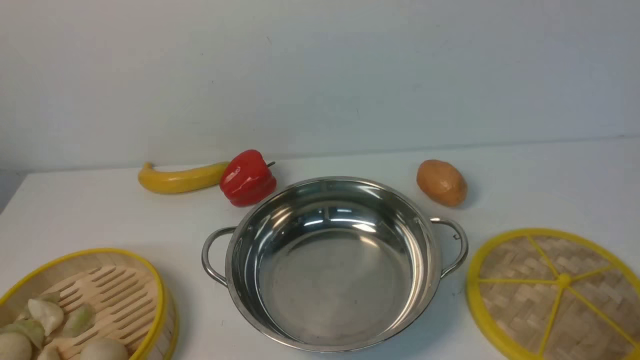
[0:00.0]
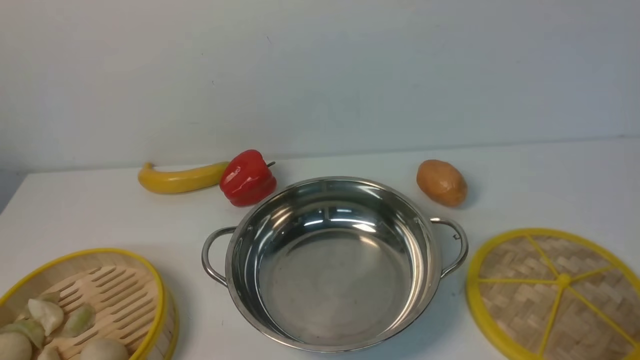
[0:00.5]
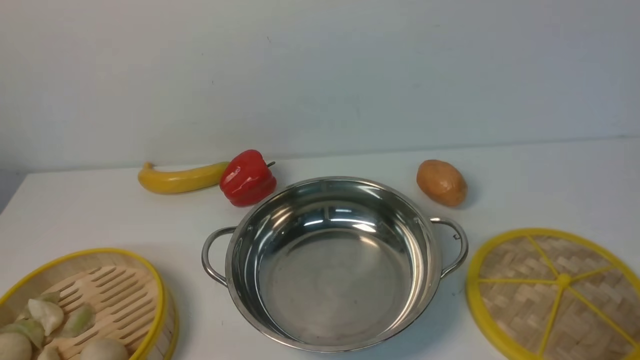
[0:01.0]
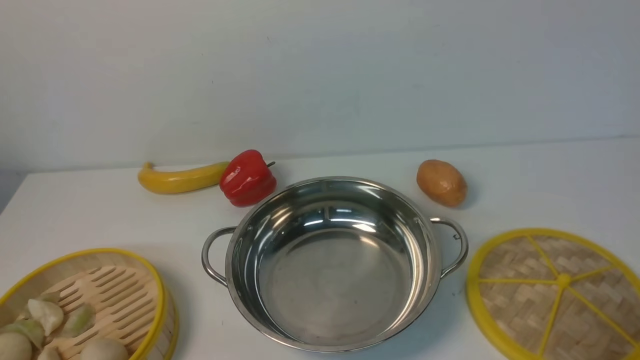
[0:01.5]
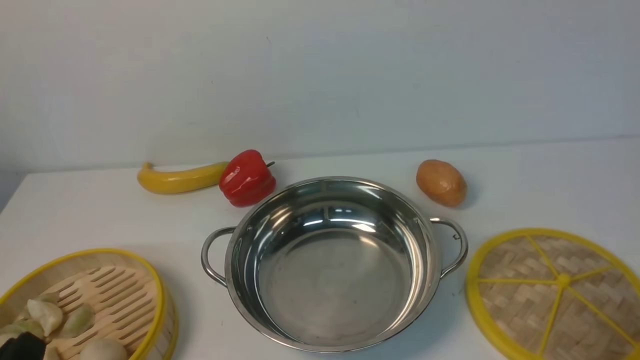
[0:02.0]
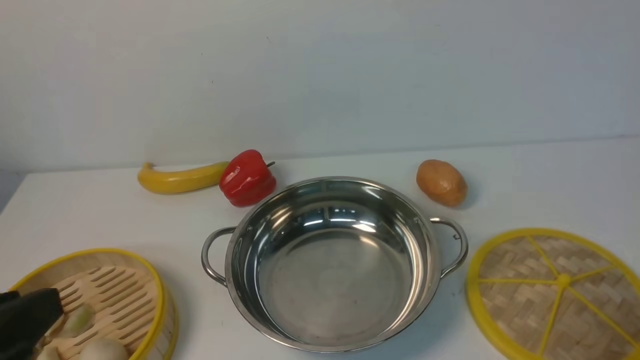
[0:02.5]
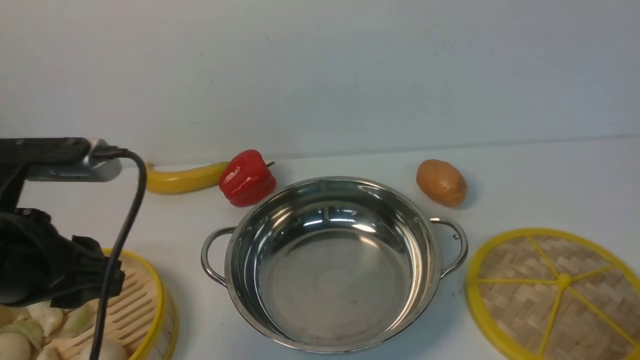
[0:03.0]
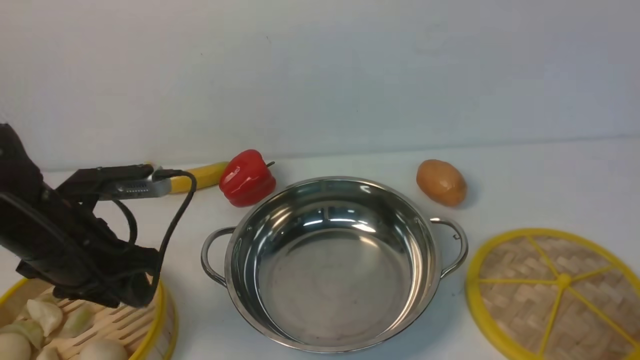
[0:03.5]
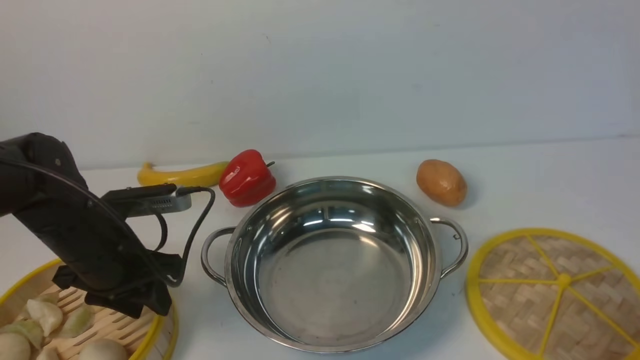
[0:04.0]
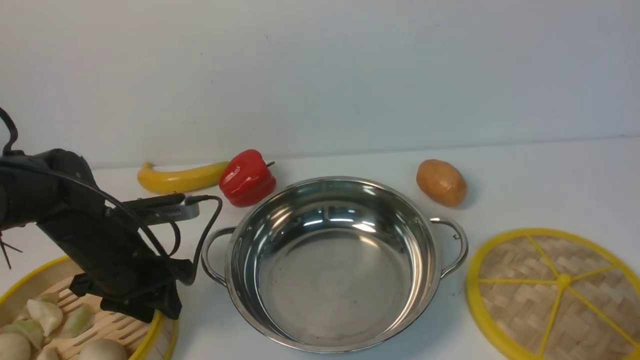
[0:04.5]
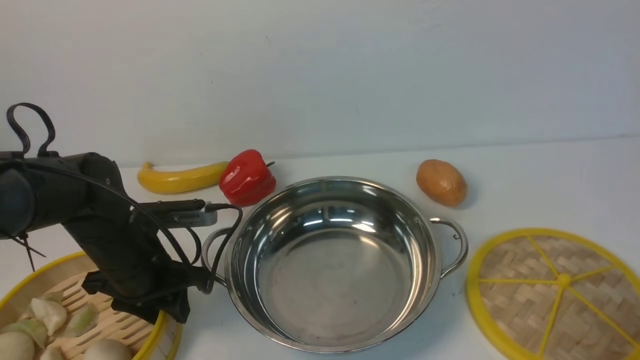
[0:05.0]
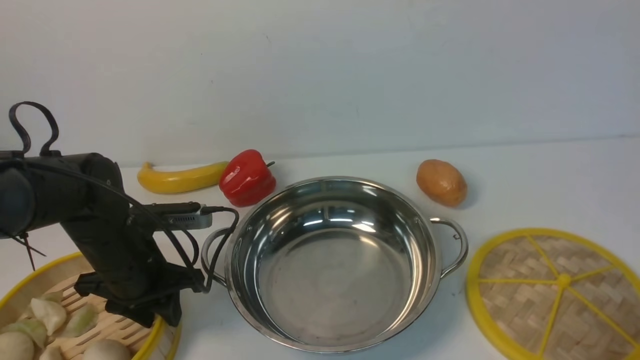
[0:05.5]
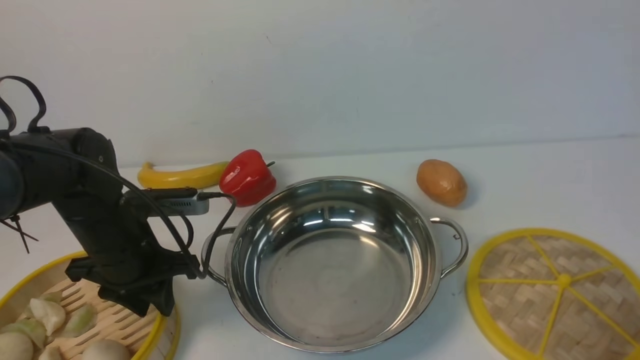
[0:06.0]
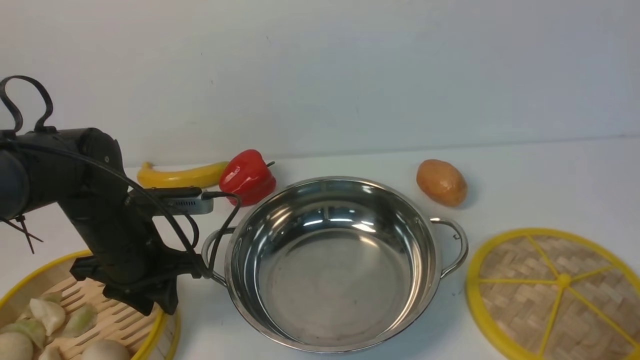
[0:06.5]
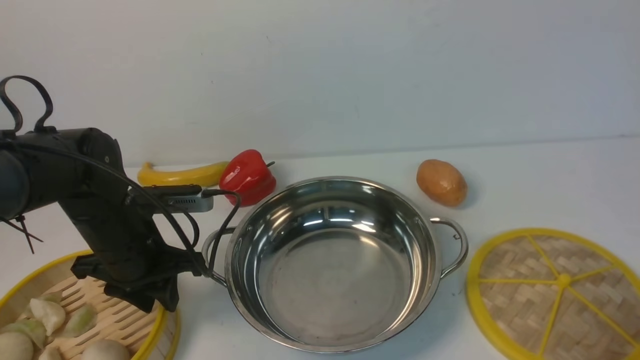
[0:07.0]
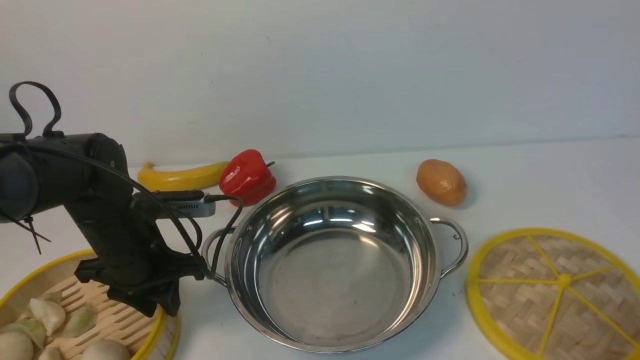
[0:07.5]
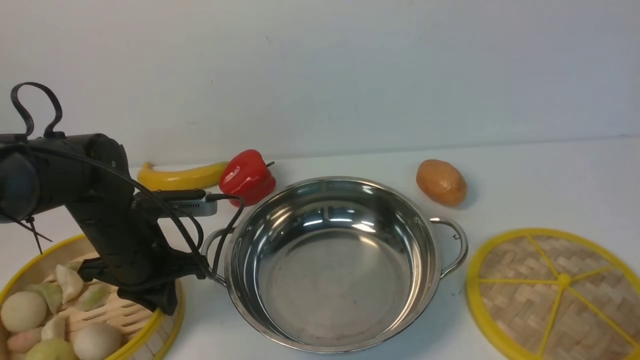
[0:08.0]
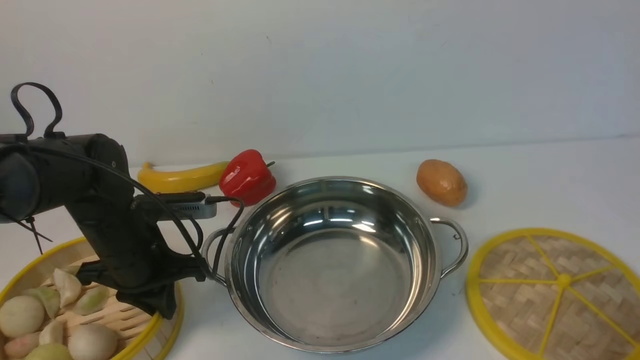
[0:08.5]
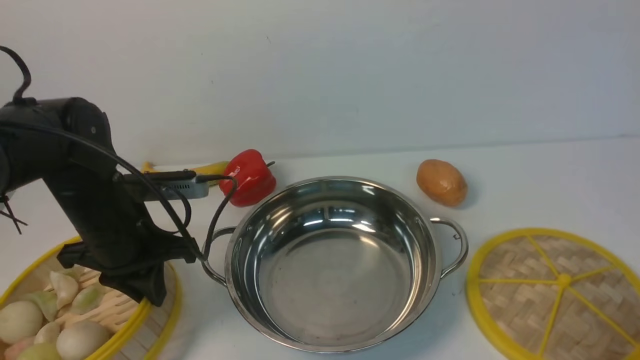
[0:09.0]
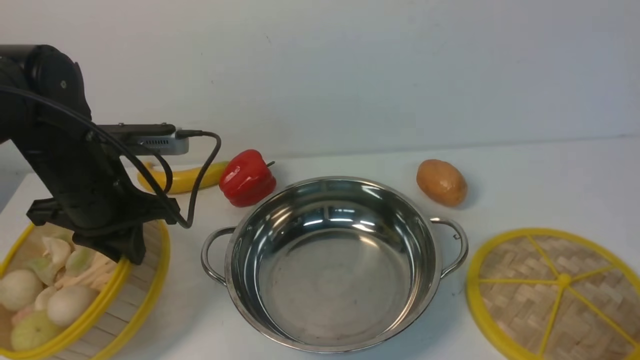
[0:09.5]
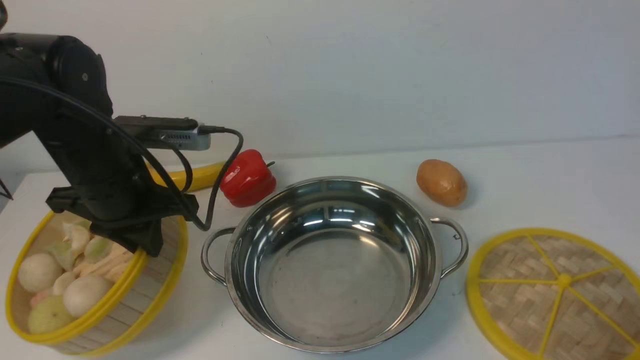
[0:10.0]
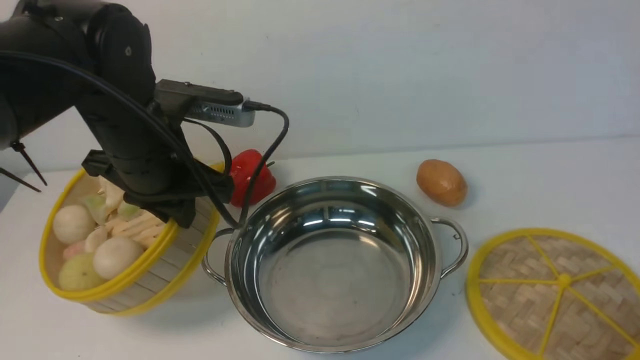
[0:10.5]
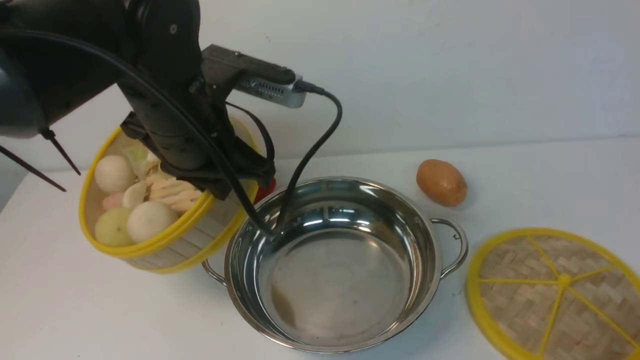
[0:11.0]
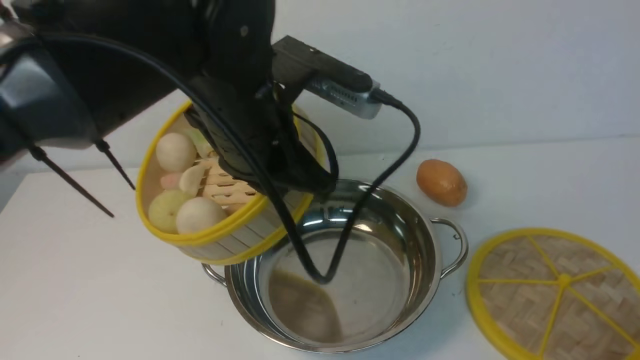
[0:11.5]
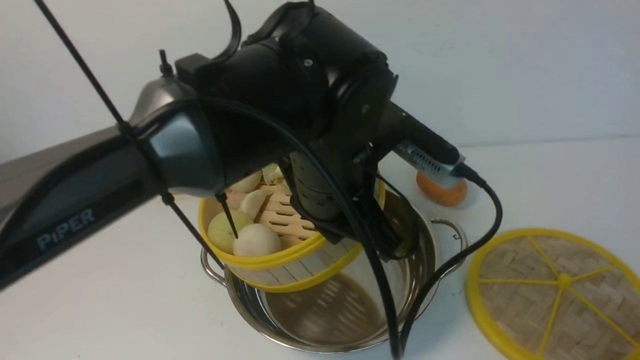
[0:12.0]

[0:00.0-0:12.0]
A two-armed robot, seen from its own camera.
Task of the whole recording: place the steamer in the pot on the white table, and put the lid on the steamer.
Step, 0:00.0 to 0:09.0: use the left arm to lift the steamer closest to it.
0:02.0 to 0:04.0: The left gripper is displaced forward by about 25 cm, and opens.
0:04.0 to 0:06.0: The grippers make only small movements.
0:06.0 to 0:08.0: The left gripper closes.
0:08.0 to 0:10.0: The left gripper travels upward by some 10 cm.
0:10.0 to 0:12.0: The left gripper travels to the right by approximately 20 cm.

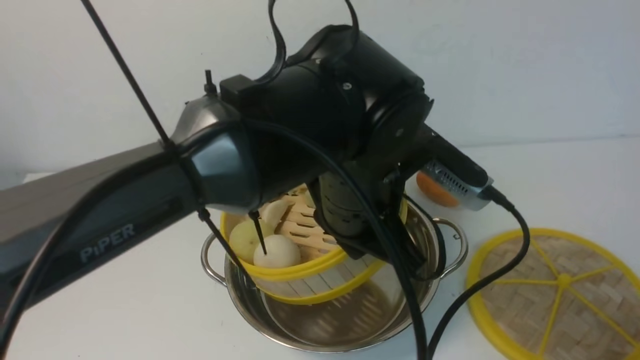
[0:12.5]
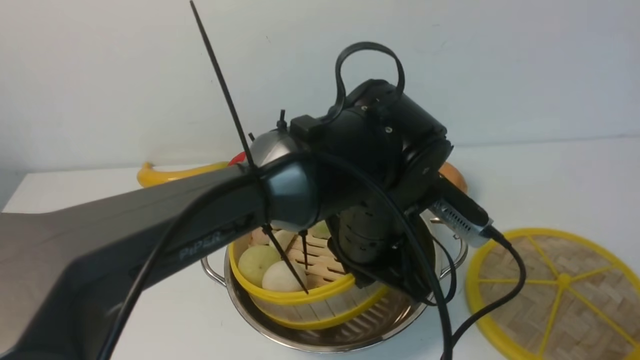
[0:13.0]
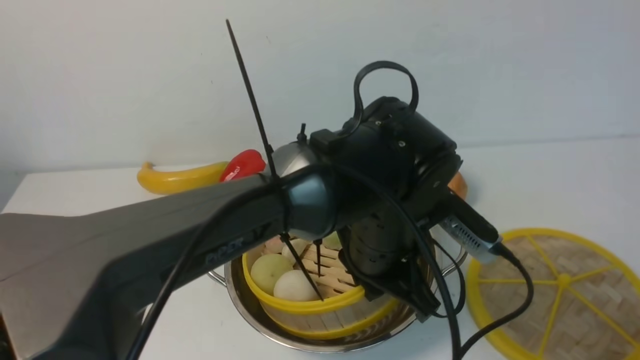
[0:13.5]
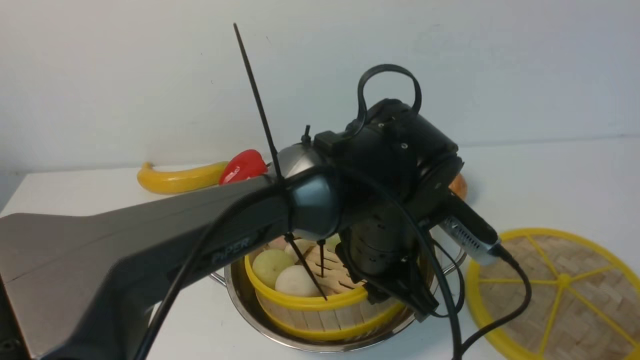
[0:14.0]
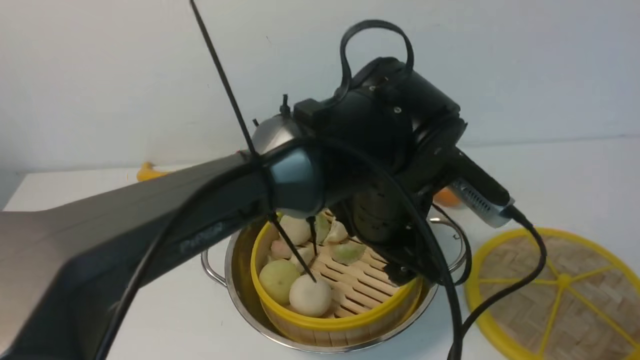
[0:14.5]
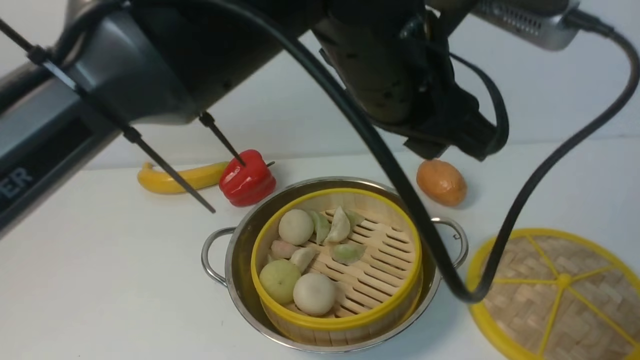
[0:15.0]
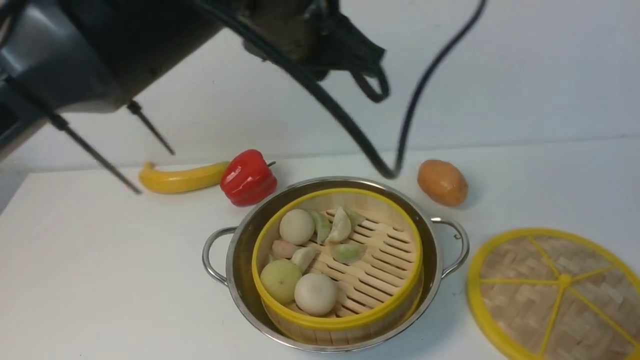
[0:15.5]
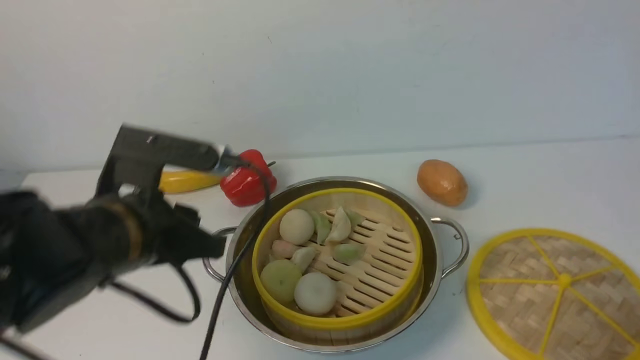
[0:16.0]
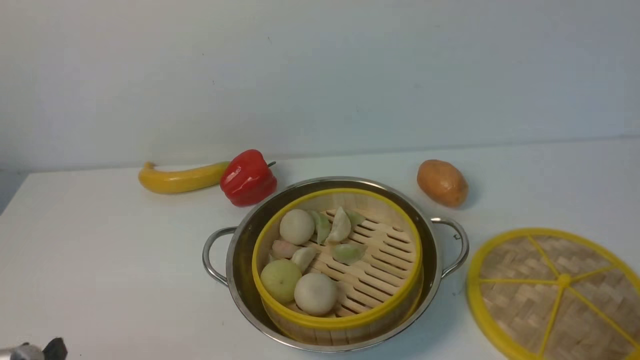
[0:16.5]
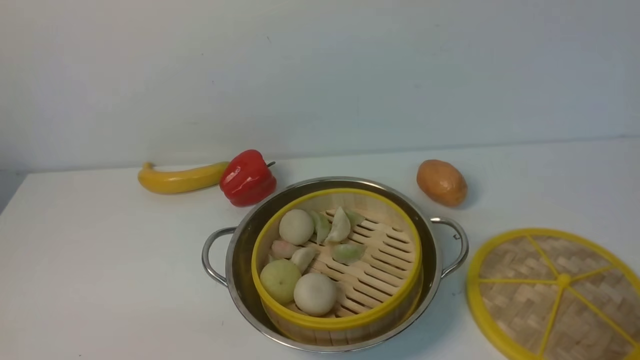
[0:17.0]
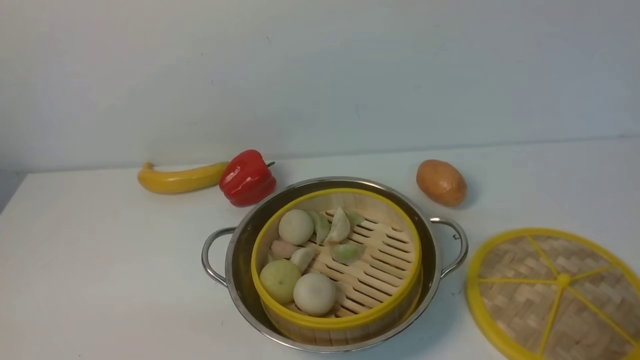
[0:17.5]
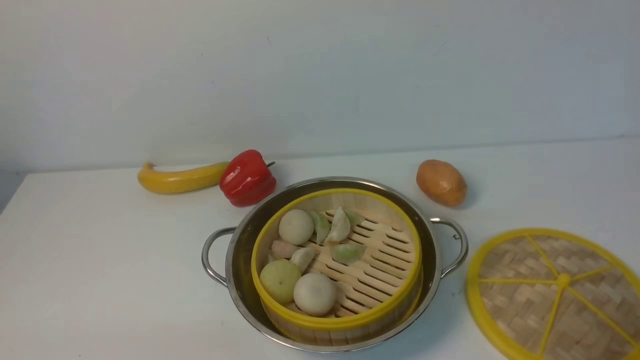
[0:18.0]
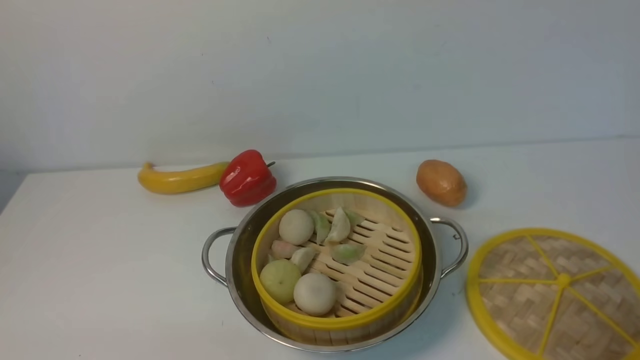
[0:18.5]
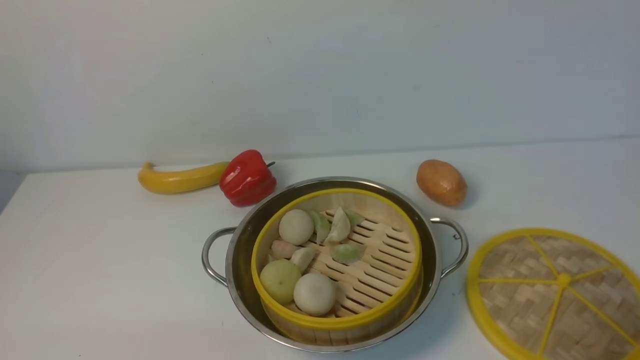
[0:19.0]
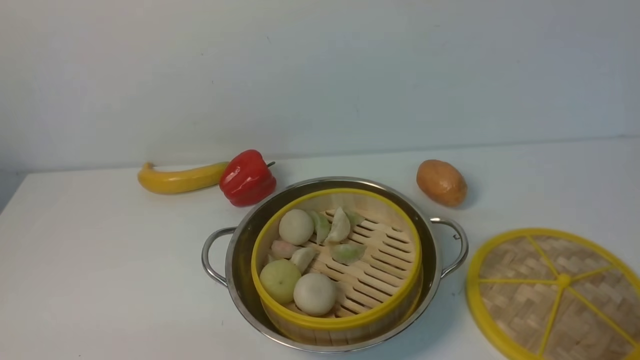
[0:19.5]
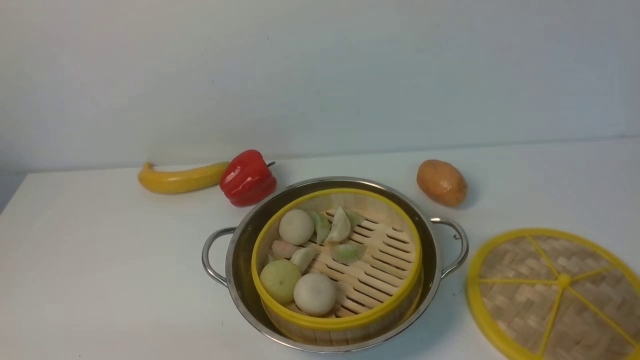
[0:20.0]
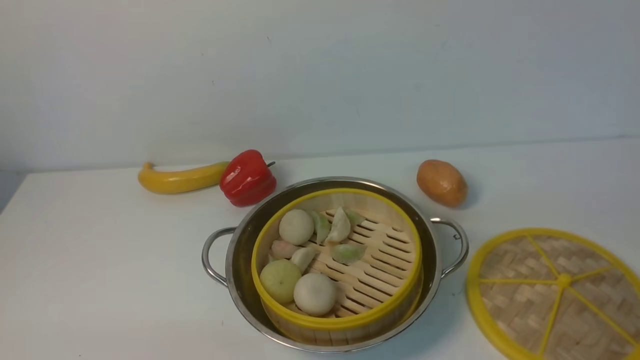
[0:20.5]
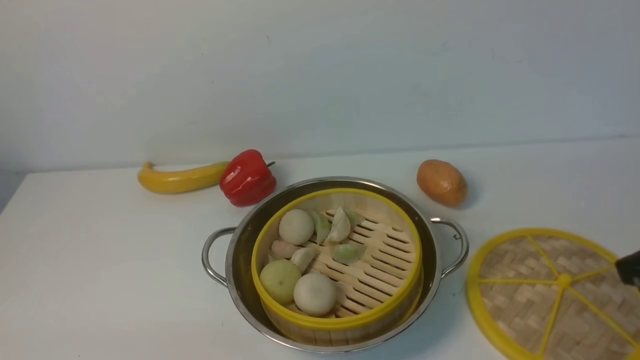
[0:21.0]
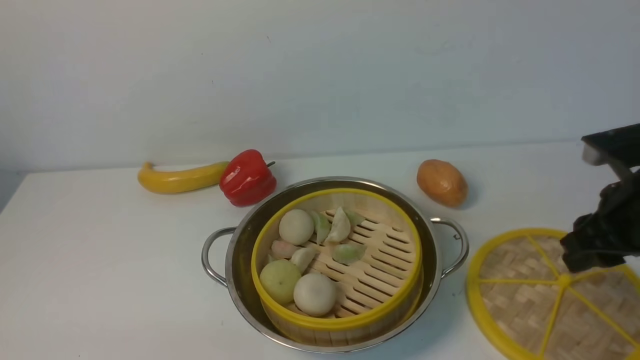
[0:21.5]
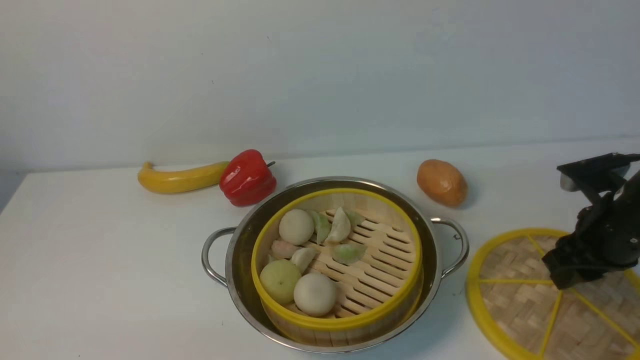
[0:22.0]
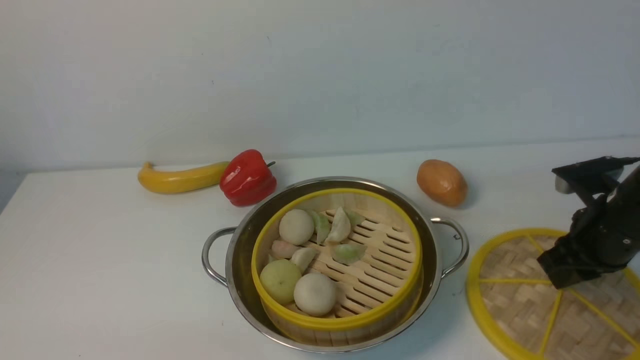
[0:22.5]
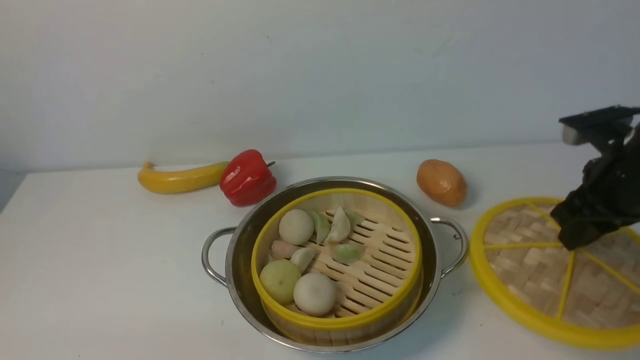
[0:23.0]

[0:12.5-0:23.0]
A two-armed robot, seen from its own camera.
Task of the whole recording: place the steamer in the pot on the white table, and put the lid on the steamer.
Step, 0:14.5 to 0:22.5: use the right arm to lift the lid of the steamer.
0:12.5 to 0:14.5: The left gripper opens its fingers.
0:14.5 to 0:16.5: The left gripper travels to the left and backward by approximately 35 cm, and closes its fingers.
0:21.0 to 0:23.0: The right gripper goes about 15 cm forward, and closes its fingers.
